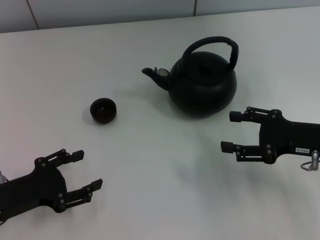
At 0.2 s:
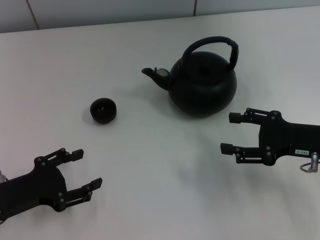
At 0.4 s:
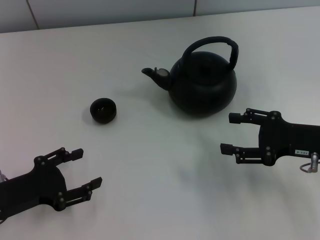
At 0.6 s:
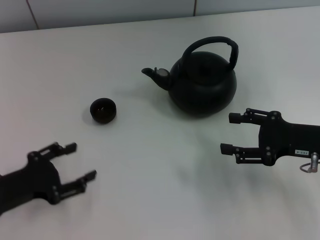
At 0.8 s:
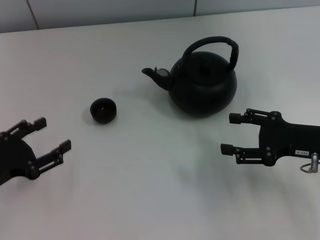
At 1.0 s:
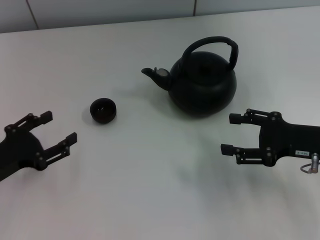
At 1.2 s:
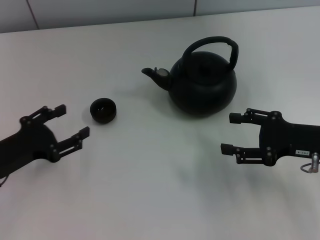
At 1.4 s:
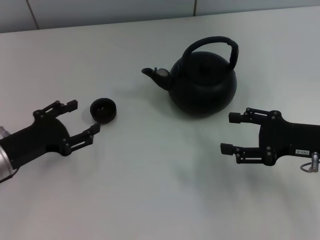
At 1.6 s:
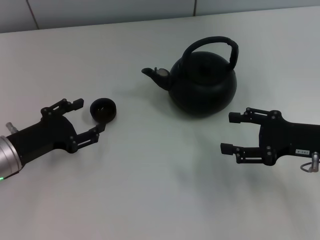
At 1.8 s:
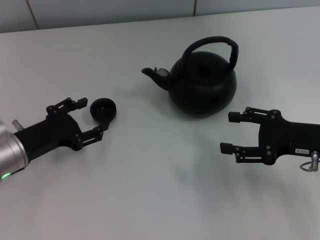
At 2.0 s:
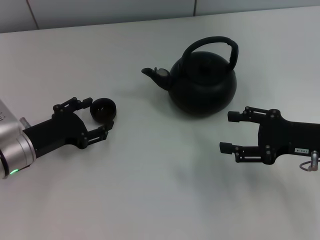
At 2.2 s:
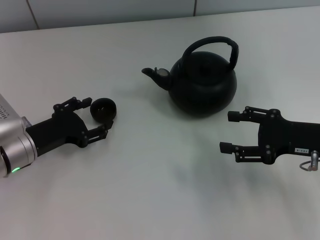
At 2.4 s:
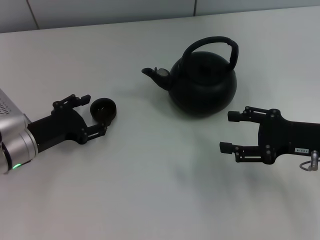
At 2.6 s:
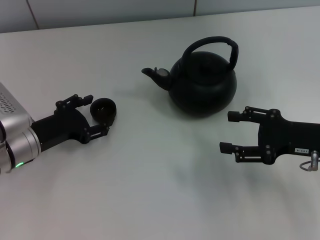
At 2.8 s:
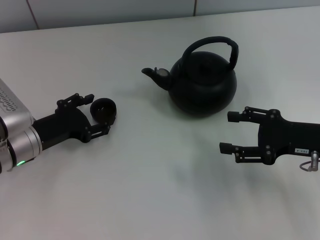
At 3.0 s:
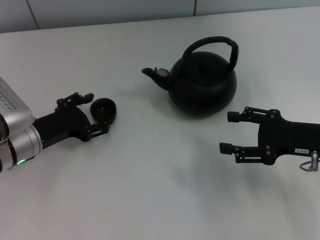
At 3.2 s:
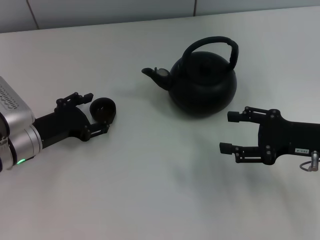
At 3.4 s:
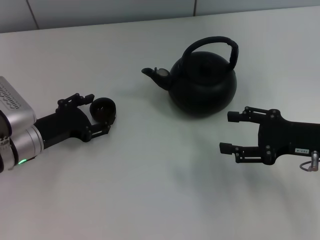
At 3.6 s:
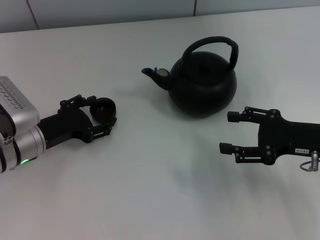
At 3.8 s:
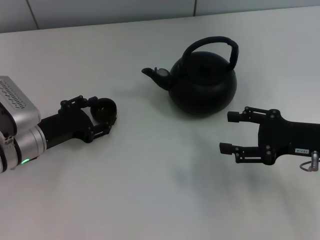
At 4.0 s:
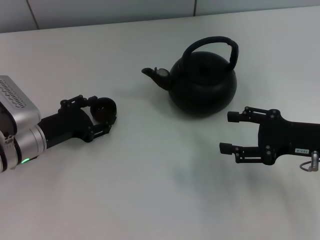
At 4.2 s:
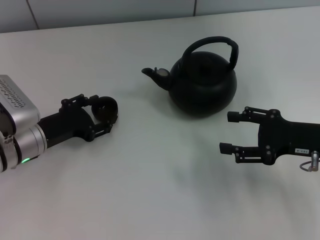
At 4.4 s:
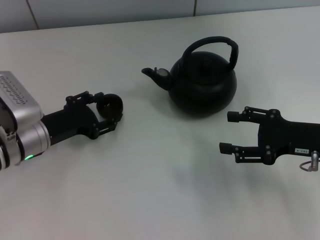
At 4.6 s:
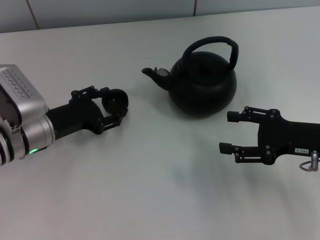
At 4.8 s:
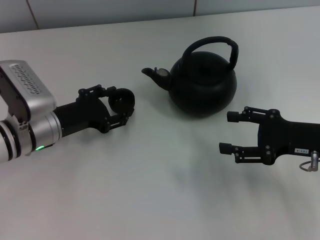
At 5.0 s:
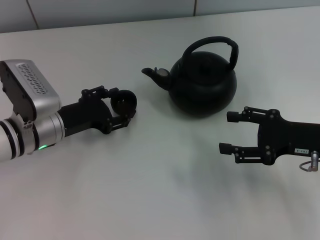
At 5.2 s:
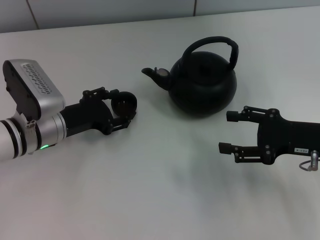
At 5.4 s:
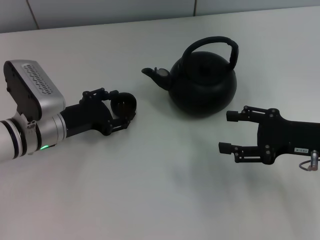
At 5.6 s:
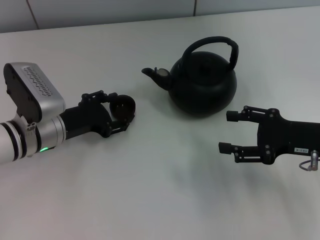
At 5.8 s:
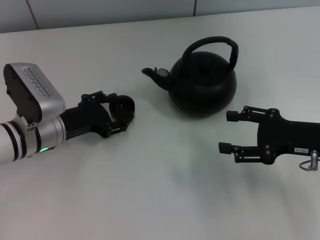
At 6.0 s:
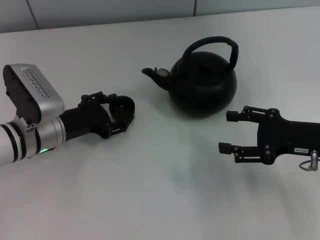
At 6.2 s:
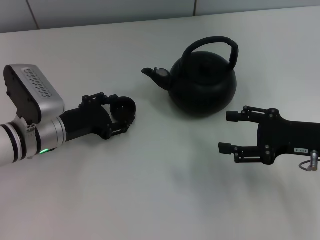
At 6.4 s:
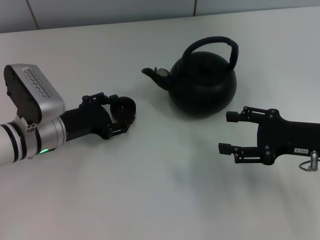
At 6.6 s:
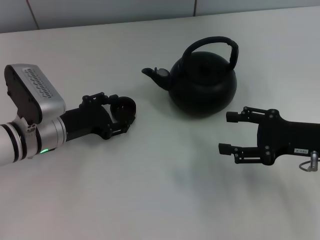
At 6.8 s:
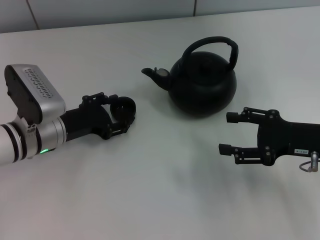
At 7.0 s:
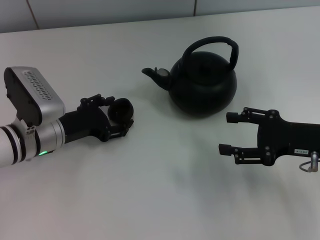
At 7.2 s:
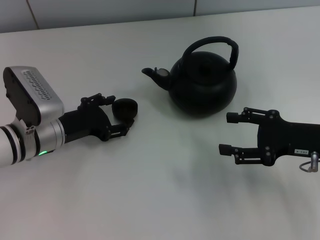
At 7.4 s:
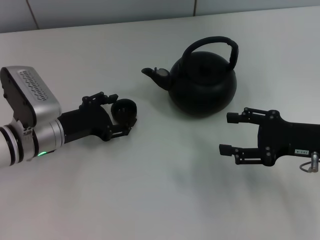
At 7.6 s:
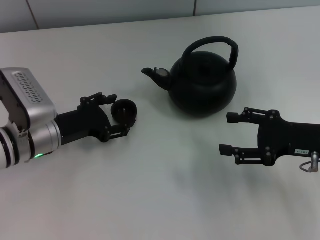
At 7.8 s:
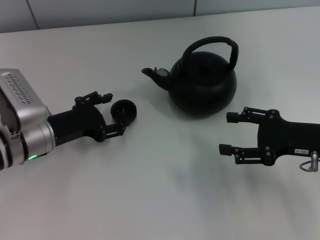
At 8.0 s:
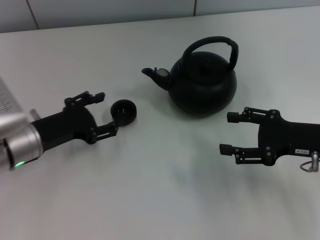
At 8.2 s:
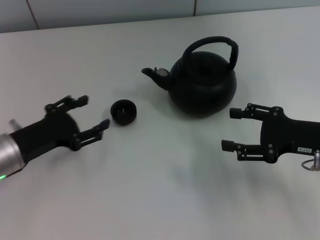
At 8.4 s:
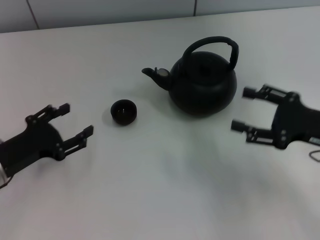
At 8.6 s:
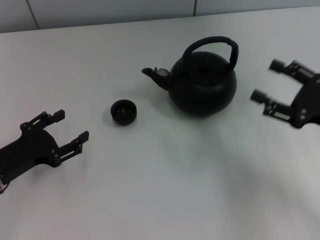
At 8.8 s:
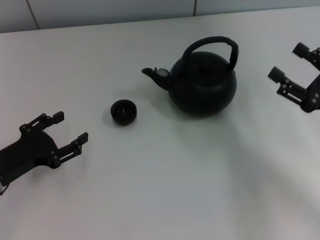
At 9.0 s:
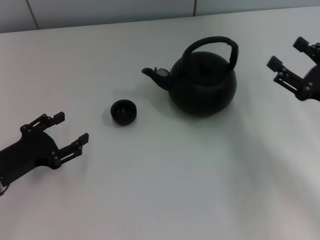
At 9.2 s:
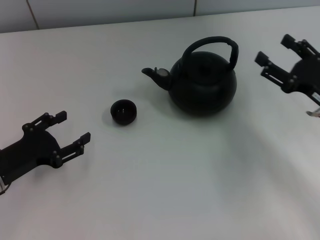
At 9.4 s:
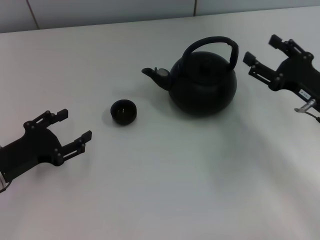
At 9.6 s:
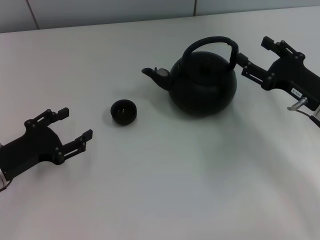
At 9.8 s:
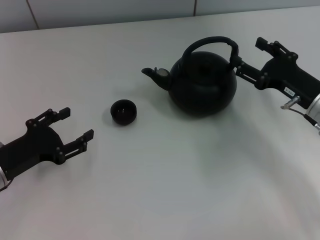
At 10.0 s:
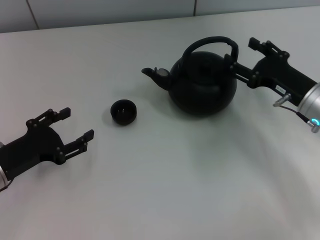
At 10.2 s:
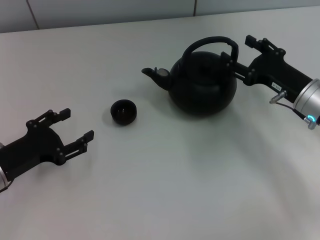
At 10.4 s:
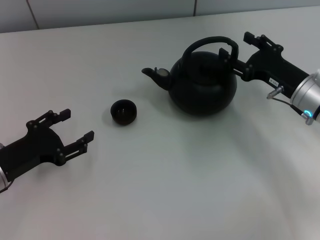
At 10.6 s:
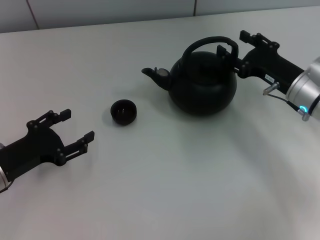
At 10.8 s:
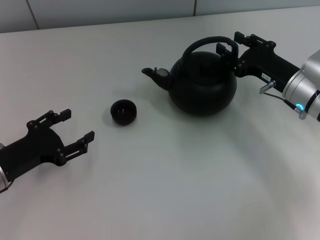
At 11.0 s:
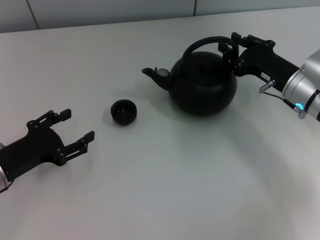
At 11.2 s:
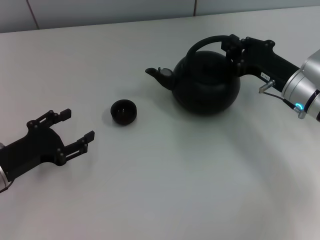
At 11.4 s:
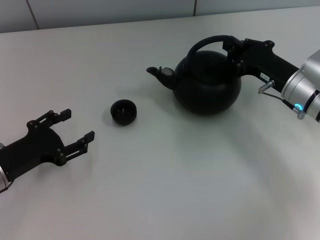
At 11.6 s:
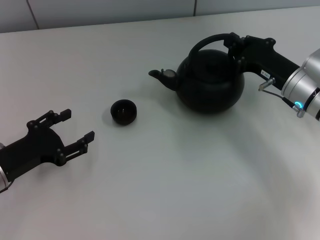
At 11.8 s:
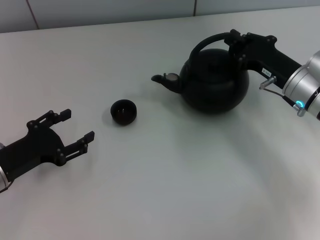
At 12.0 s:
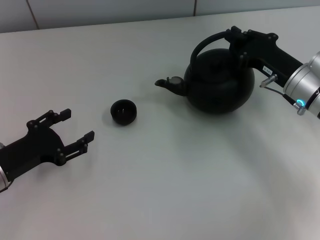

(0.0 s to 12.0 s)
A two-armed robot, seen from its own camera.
Task of the whole recording: Grasp the handle of the teapot with one hand and pour tea into the teacup.
Step, 0.0 s - 4.6 s: Pick up the teacup with the left gripper.
Step, 4.8 s - 8.0 s: Place the teacup in the center of view with the left gripper.
0.0 s - 1.6 s: The left gripper shifts about 5 cm forward.
1.6 s - 3.0 s: The grippers make only small movements.
3.0 s - 4.4 s: Both grippers stay put.
4.4 s - 6.0 s: The grippers move only a little.
6.0 s - 7.6 s: The two grippers keep their place.
7.6 s - 9.0 s: The left gripper is displaced to the left and backward by roughly 10 cm.
9.0 s - 10.4 s: The right gripper is displaced forward and to the left by some 10 cm.
10.4 s - 12.0 s: The right gripper closes its fingers.

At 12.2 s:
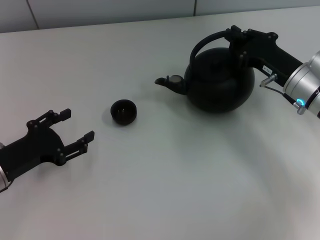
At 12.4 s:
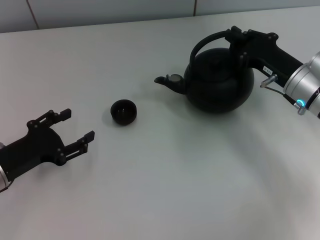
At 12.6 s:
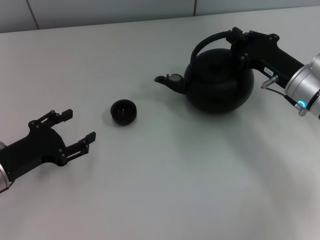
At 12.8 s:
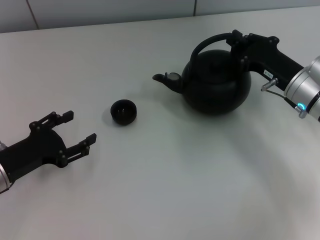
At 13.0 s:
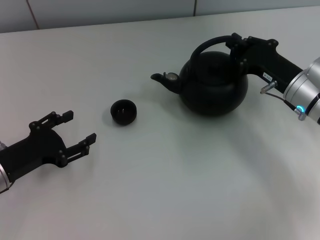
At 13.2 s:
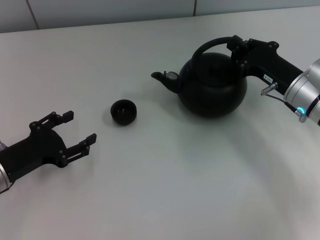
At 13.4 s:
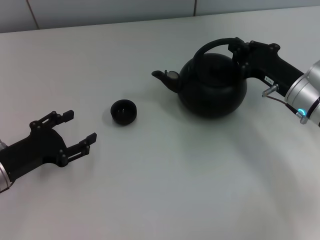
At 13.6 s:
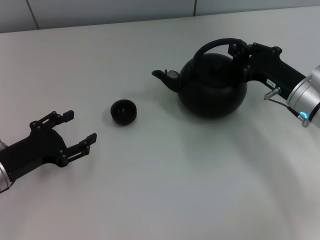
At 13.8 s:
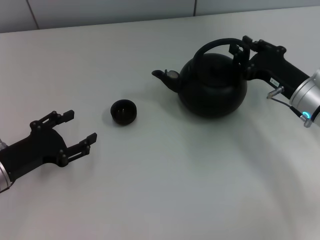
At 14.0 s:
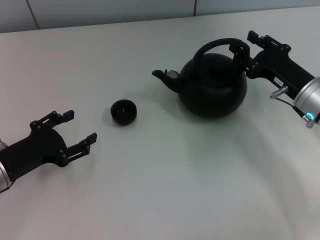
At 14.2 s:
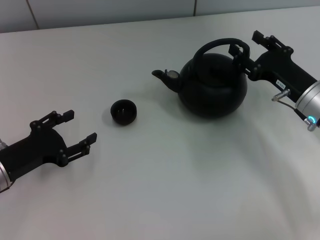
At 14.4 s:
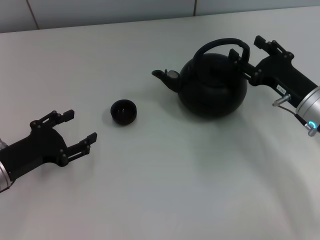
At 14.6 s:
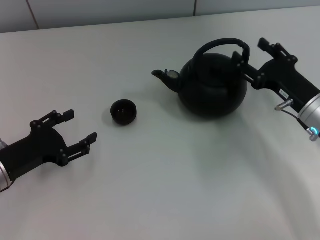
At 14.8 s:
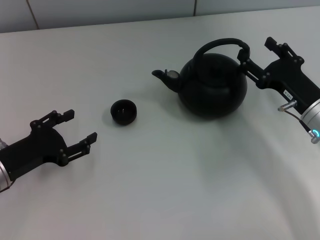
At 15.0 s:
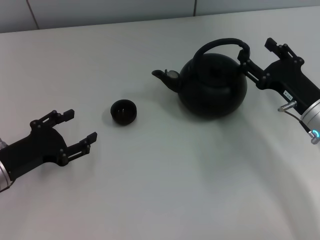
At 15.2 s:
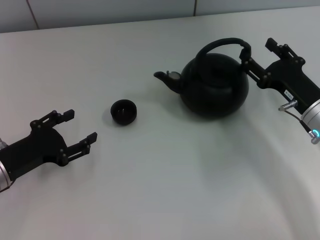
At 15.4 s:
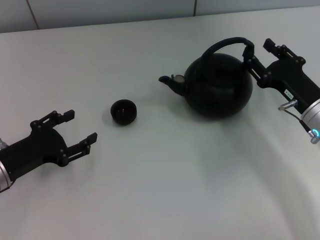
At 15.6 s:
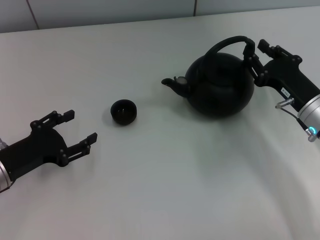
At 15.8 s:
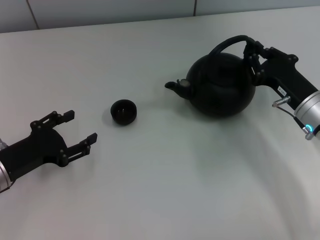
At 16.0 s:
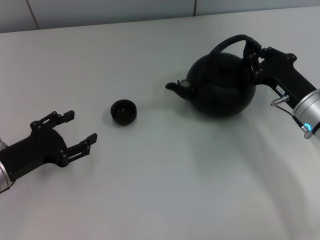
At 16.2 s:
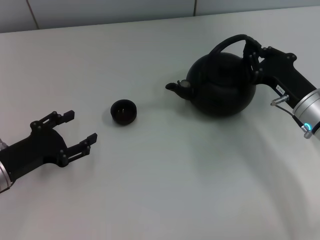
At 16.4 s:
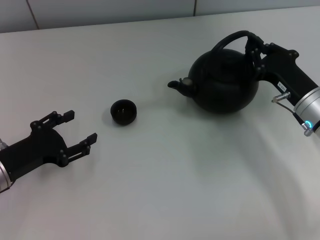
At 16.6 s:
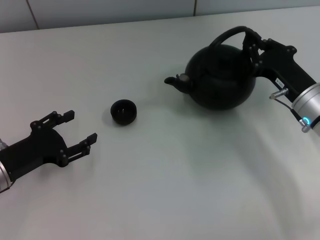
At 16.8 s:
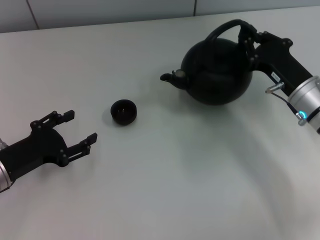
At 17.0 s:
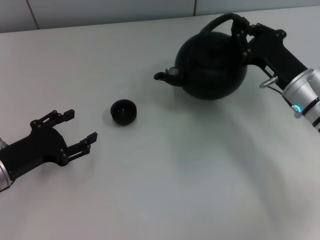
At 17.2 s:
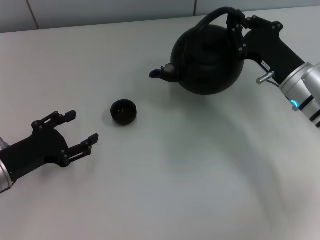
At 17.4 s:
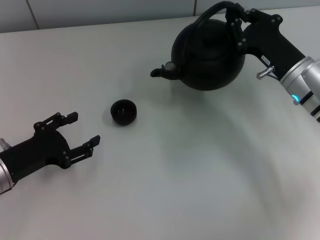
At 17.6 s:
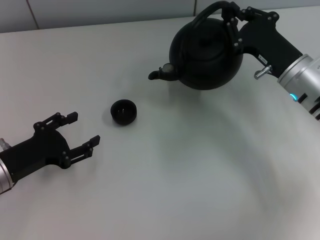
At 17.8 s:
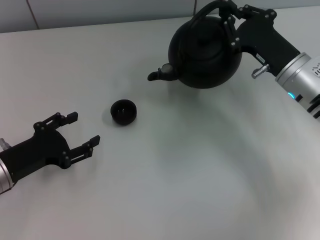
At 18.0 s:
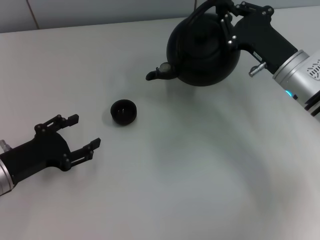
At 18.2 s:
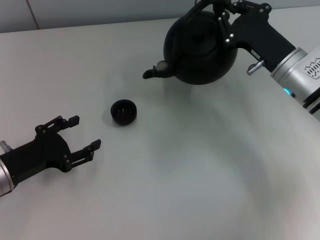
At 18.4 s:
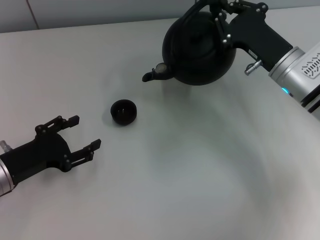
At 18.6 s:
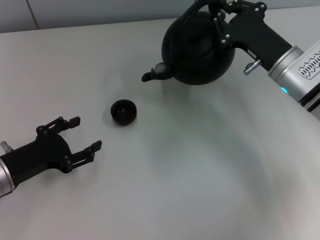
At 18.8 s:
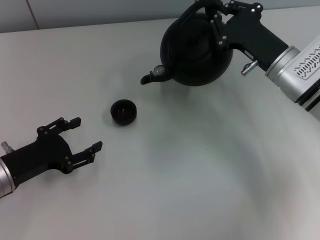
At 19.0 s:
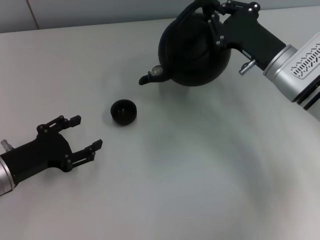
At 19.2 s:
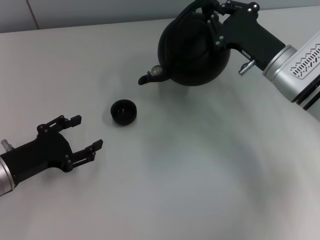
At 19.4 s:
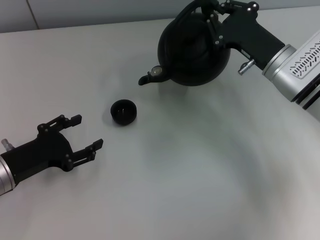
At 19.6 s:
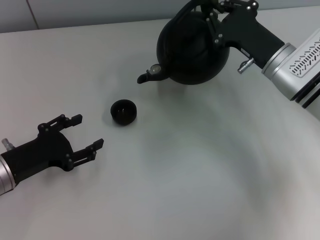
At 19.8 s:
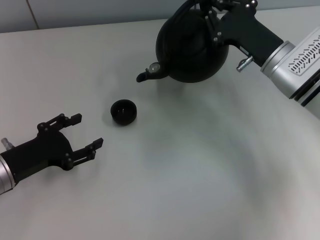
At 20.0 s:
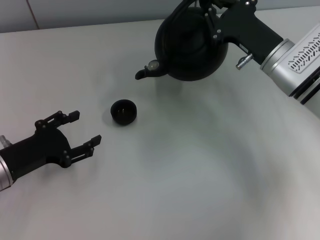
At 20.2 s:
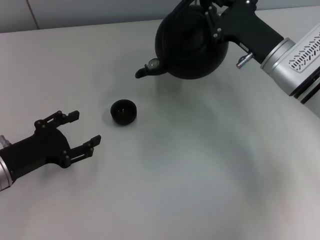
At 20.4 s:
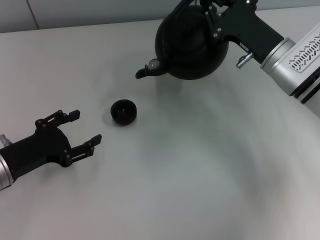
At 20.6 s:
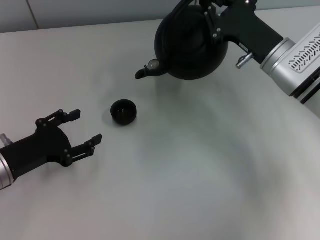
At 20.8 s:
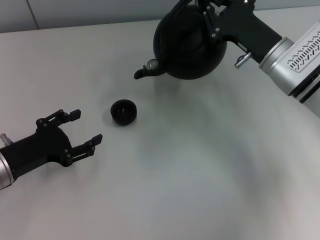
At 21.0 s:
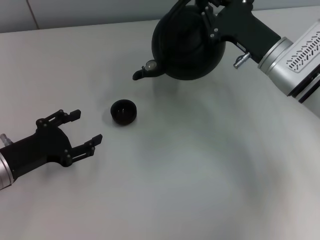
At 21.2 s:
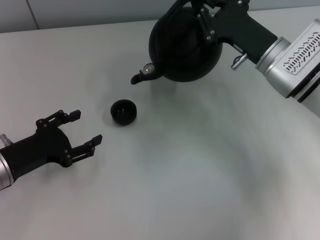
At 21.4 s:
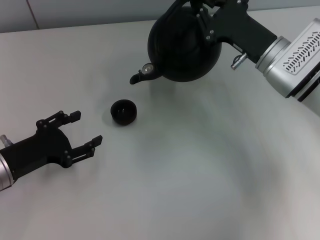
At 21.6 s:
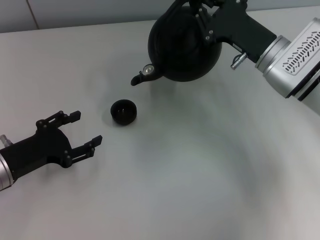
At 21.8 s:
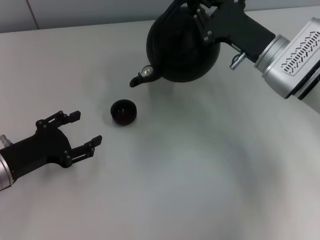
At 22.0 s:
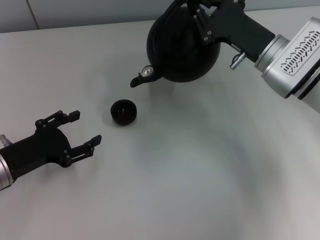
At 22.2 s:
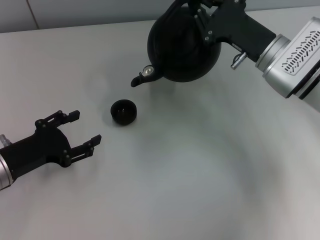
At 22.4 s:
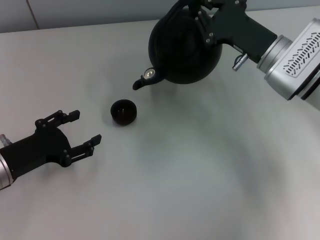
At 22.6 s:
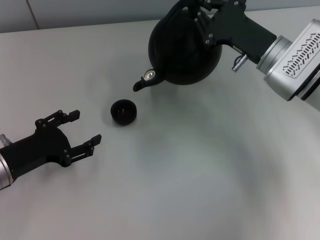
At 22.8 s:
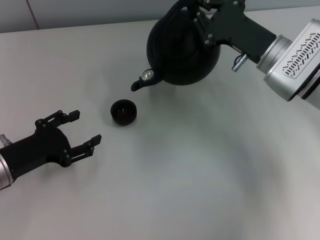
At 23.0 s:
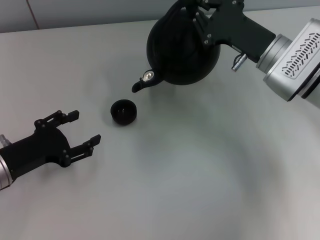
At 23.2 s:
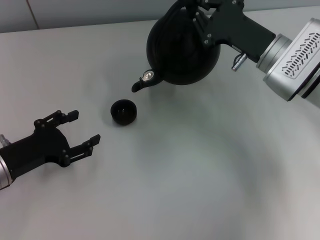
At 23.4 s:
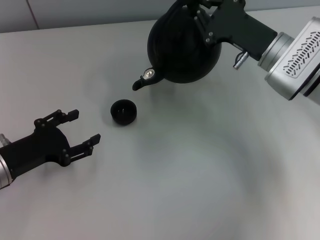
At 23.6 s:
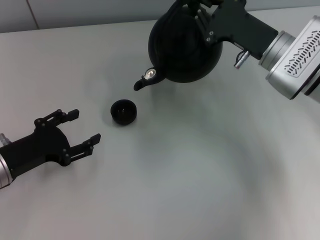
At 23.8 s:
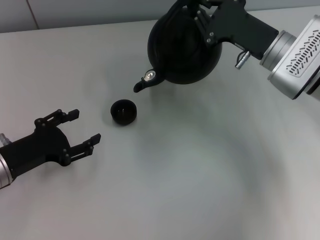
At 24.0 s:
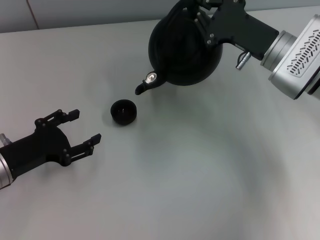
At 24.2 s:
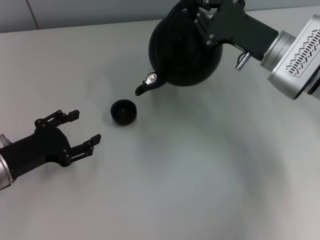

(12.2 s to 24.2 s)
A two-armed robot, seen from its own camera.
Task of the whole recording: Grasp the handle of the teapot with one hand and pour tea into the teacup.
Step, 12.2 s - 18.0 s: Pick up the teapot with the right gripper.
12.2 s - 13.8 s: There are only small adjustments of the grippers.
13.8 s - 15.2 s: The right gripper opens up.
15.2 s - 16.6 s: The right gripper closes its fingers.
16.6 s - 18.2 s: The right gripper moves approximately 5 cm.
18.2 s - 19.8 s: There are only small adjustments of the grippers.
19.8 s - 21.2 s: Both grippers stay about where they are.
21.2 s - 22.6 s: Neither gripper changes place.
22.6 s - 24.2 s: The grippers stay close to where they were, moving slightly.
